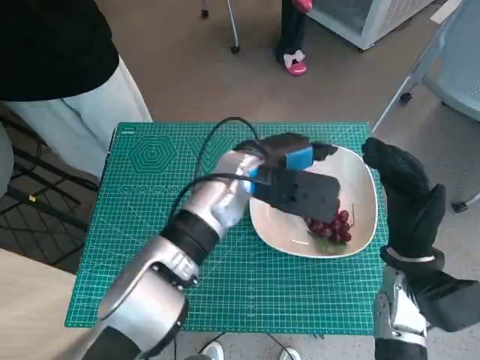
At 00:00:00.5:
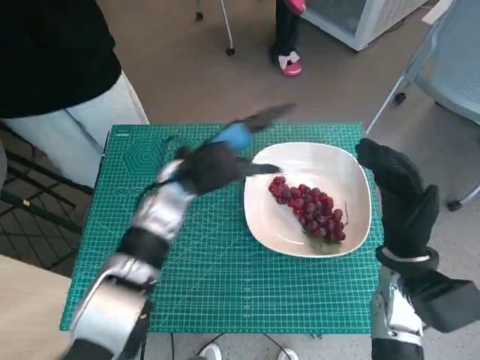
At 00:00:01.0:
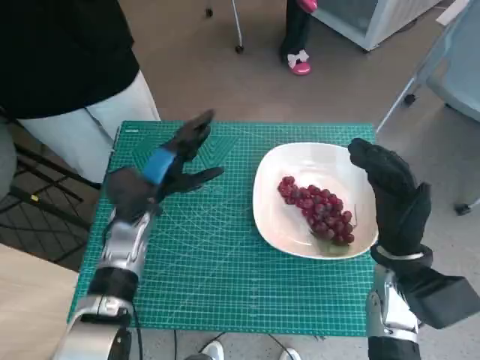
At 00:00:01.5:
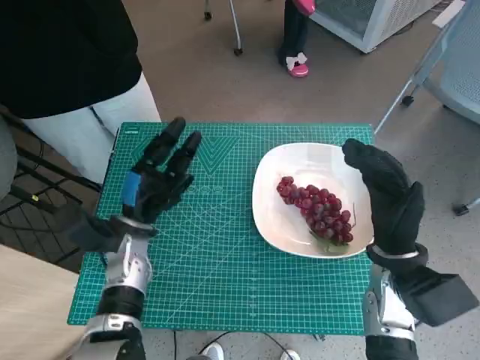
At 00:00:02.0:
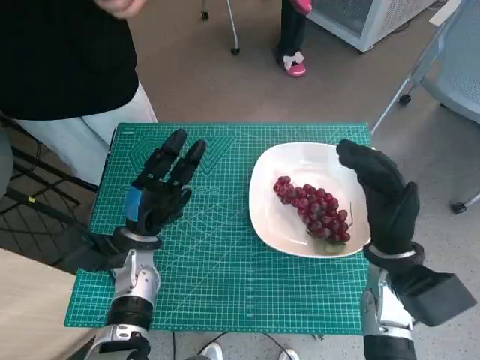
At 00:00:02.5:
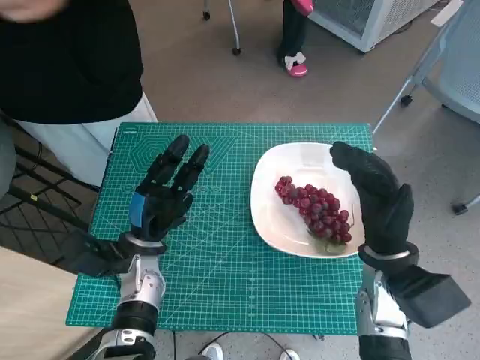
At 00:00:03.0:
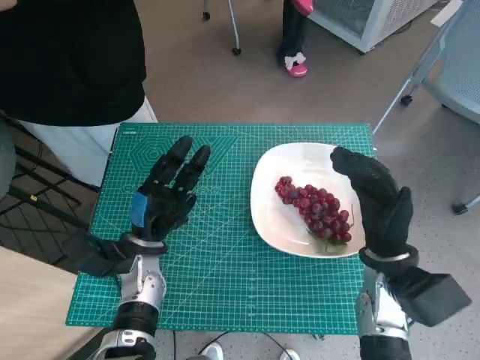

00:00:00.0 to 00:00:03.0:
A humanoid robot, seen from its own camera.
Task of the whole recording: Pick up the grapes and put them on the plate.
00:00:00.0 to 00:00:01.5: The left hand shifts roughly 20 cm to the left and downward.
00:00:01.5 to 00:00:03.0: The hands stay close to where they were, moving slightly.
